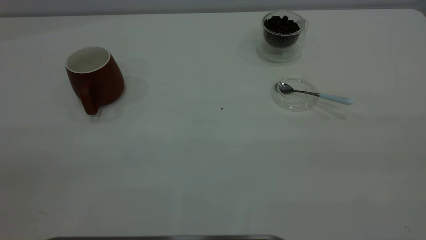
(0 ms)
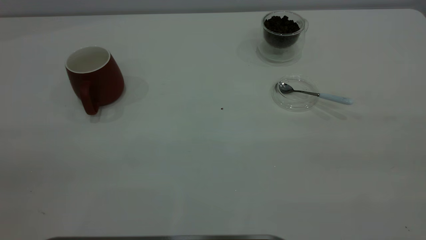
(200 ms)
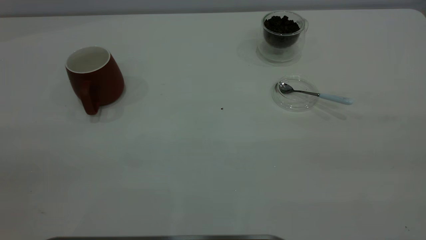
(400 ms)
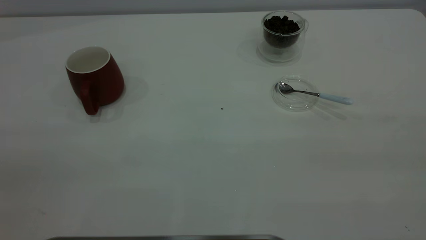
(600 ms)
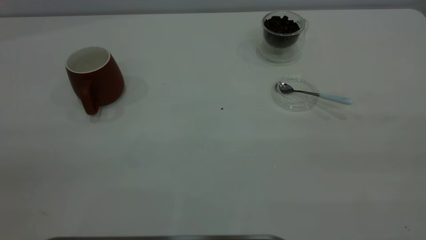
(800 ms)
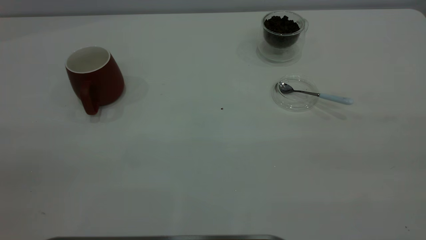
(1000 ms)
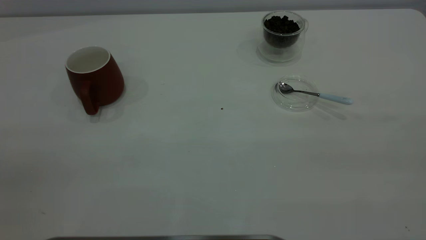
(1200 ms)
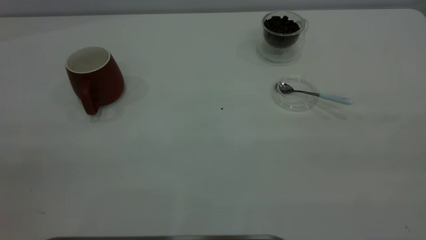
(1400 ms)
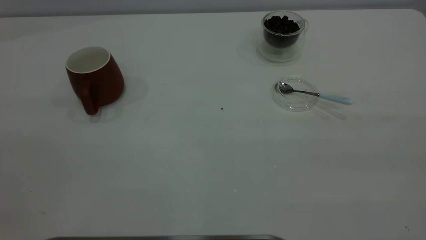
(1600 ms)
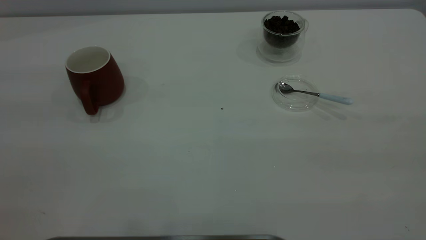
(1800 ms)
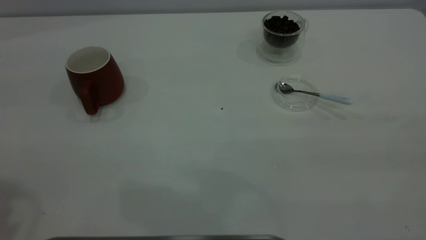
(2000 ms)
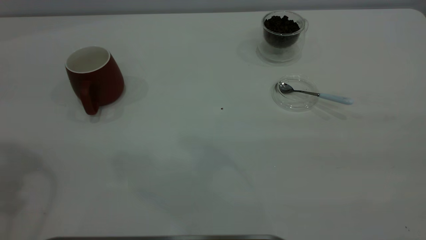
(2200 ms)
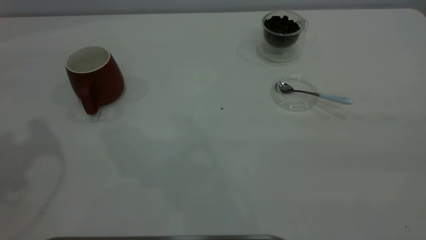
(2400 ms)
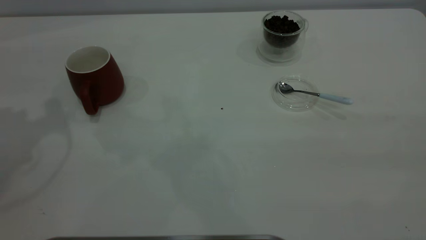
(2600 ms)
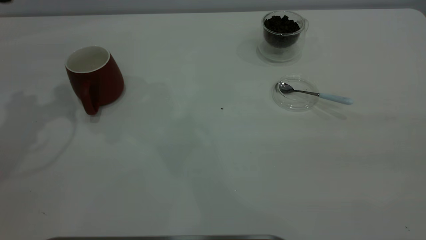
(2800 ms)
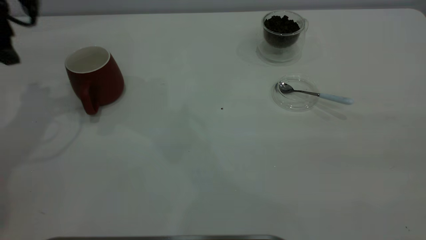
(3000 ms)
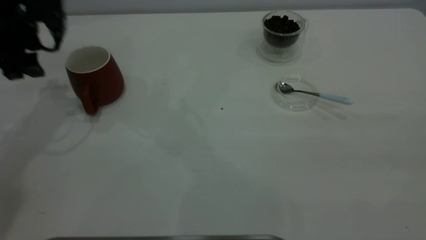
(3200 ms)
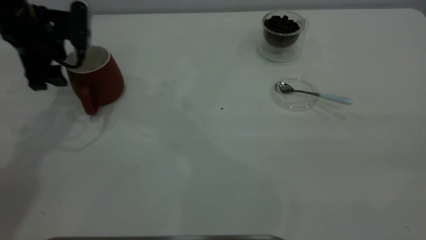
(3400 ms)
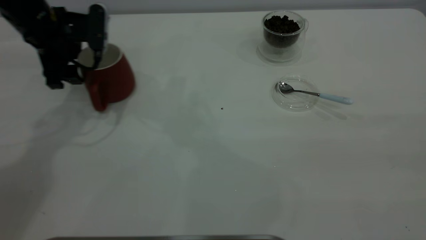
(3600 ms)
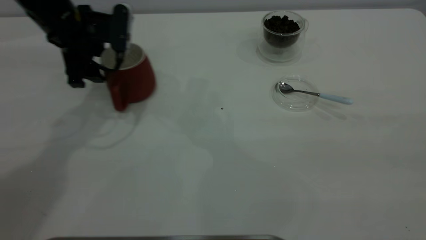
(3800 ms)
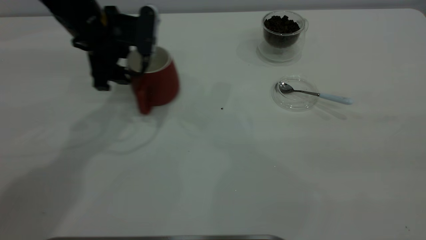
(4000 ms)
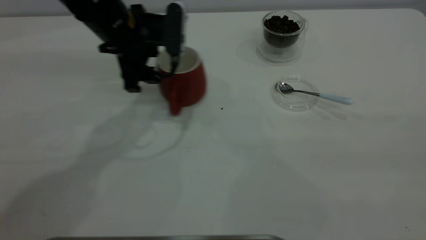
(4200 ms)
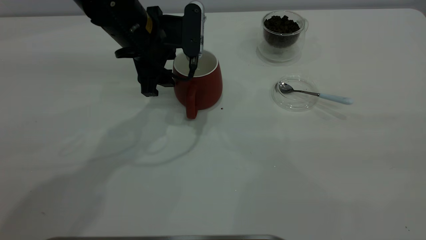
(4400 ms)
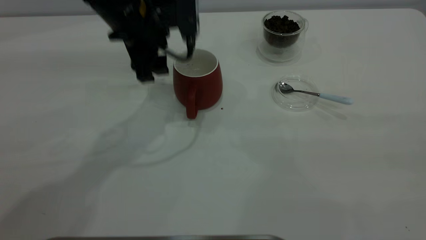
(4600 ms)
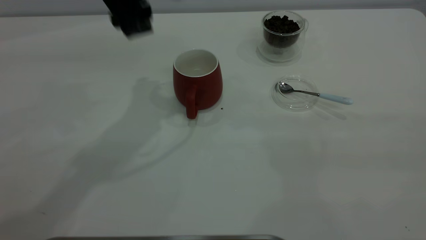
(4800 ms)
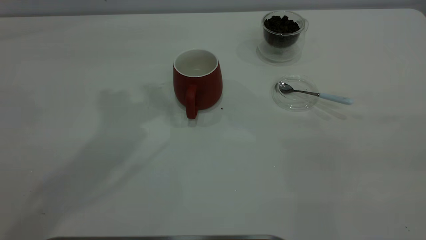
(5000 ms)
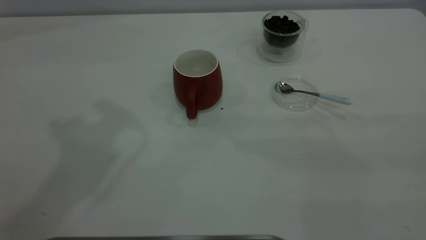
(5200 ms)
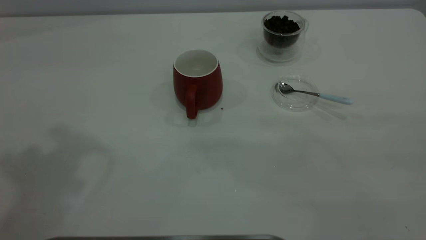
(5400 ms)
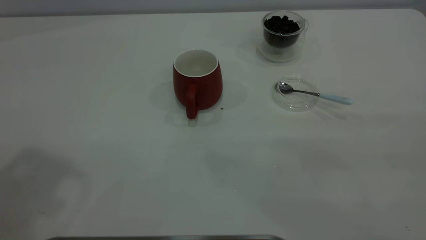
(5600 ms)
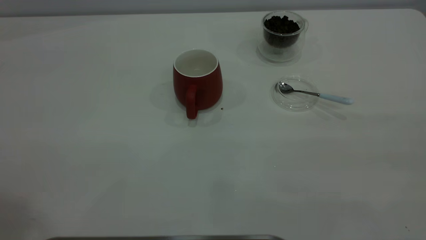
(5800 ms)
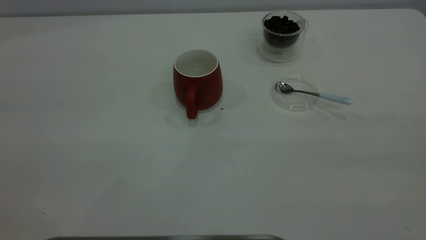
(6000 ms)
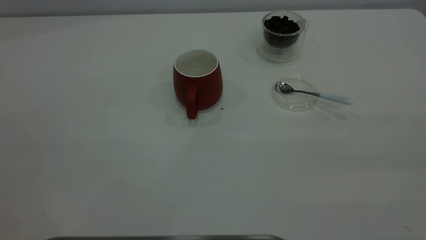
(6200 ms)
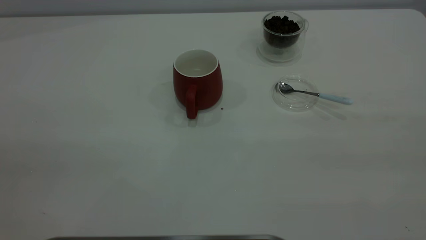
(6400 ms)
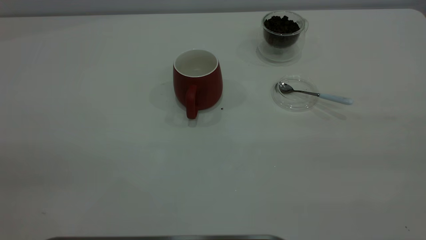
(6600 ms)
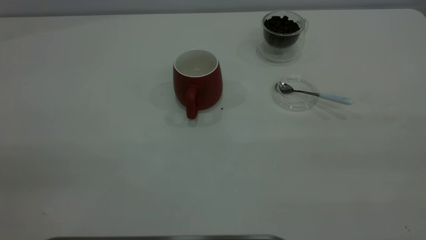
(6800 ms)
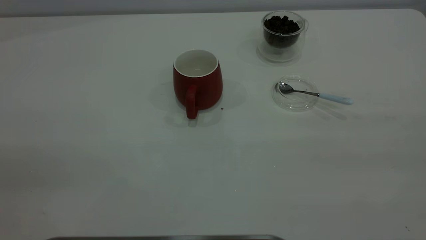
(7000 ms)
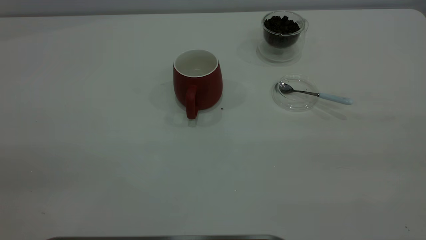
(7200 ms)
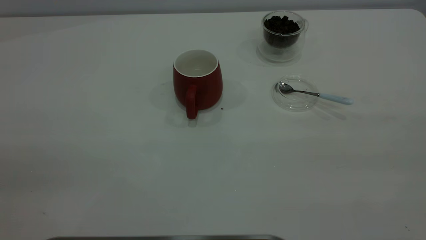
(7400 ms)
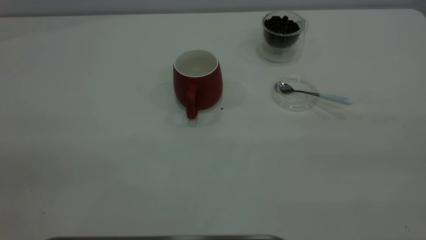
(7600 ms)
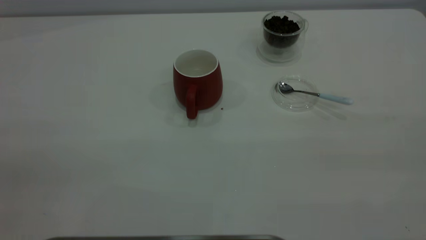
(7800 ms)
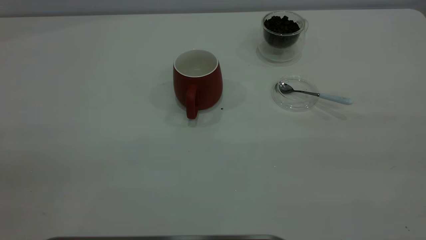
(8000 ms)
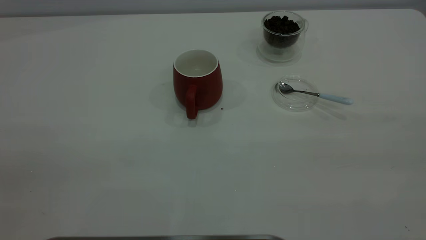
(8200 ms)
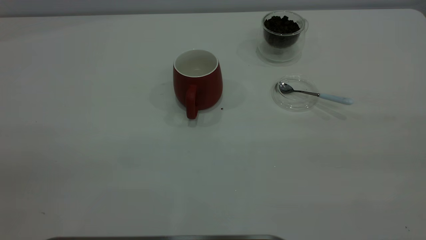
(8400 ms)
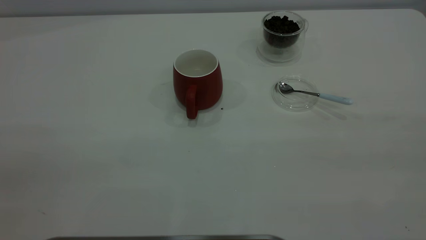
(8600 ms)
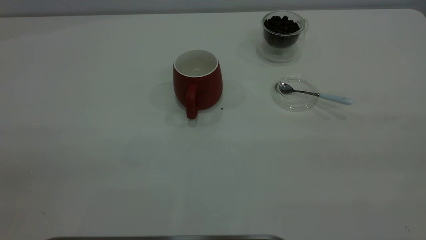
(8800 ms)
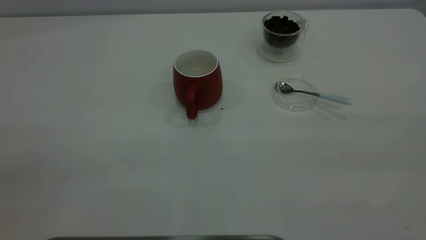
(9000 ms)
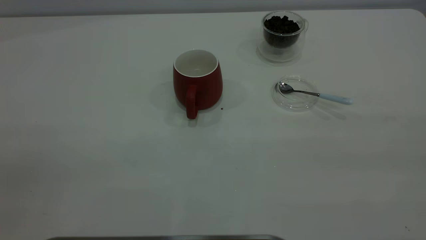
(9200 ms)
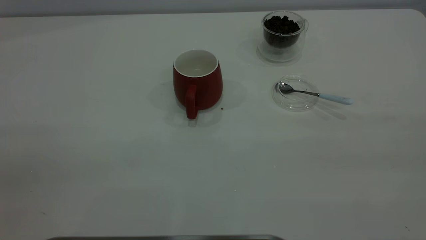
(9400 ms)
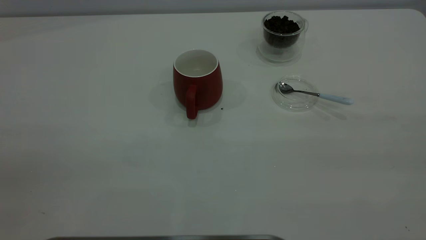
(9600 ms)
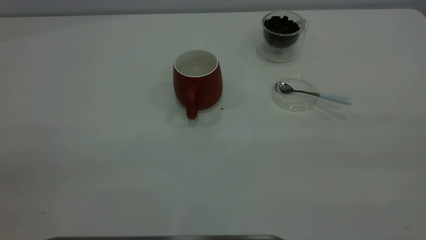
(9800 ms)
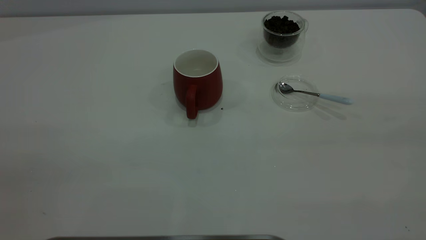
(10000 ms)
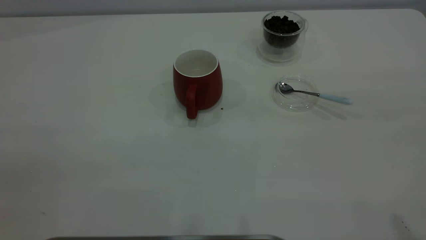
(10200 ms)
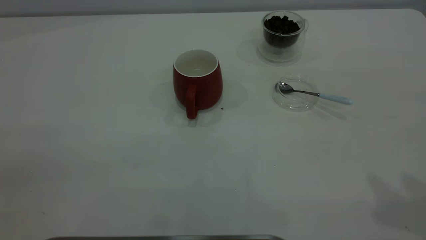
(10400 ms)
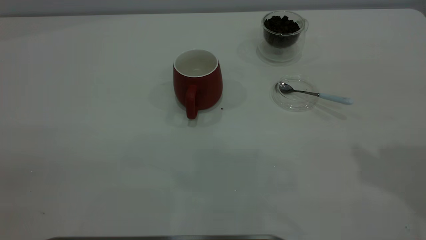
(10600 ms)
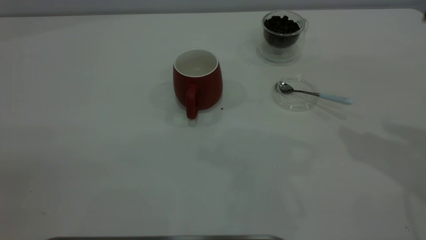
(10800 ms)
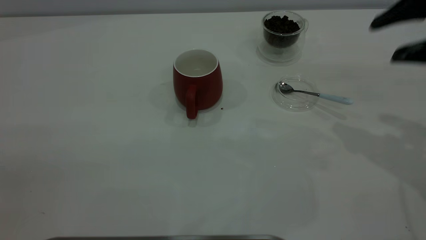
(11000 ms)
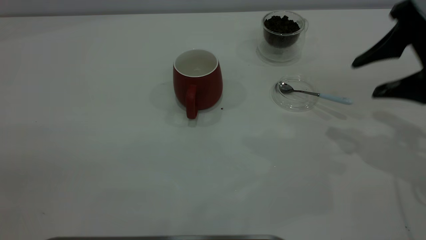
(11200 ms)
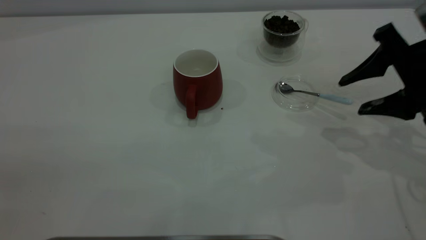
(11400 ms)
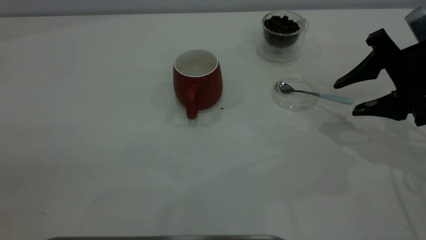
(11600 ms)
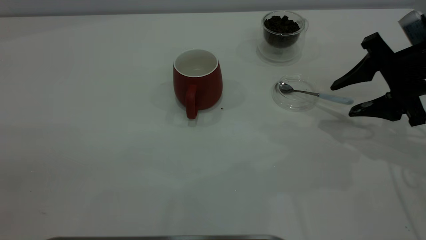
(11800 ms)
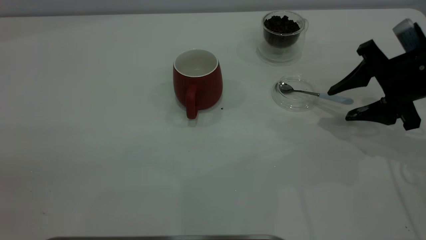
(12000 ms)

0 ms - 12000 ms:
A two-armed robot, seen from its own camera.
Task of the whole recording: the left gripper place the red cup in the center of the table, the right gripper take the blue spoon from the cup lid and scoop out the coffee beans from the coffee cup and put them into the red cup, the right gripper put the spoon back into the cup lid.
Step, 0 ms - 4600 ms: Move the cup to the center of view.
1600 ms - 3000 ms: The left gripper is displaced forward and downward by roughly 40 cm.
3000 ms - 4400 ms: The left gripper moves to the right, some 20 cm.
4400 ms - 6000 ms: The left gripper moves upward, backward and to the left, roughly 50 cm.
10400 ms - 12000 ms: The right gripper moves downward and forward, roughly 30 cm.

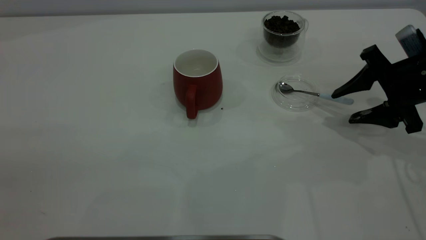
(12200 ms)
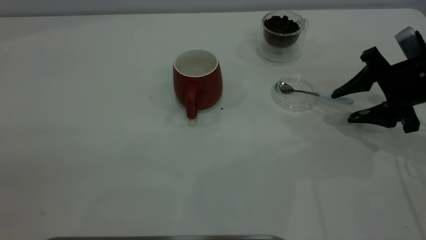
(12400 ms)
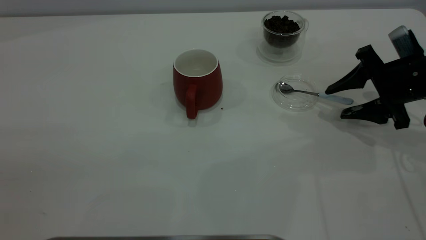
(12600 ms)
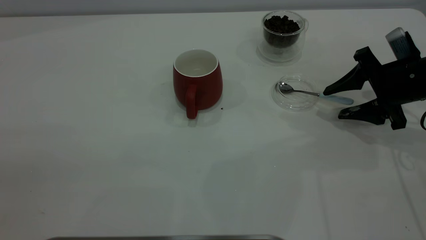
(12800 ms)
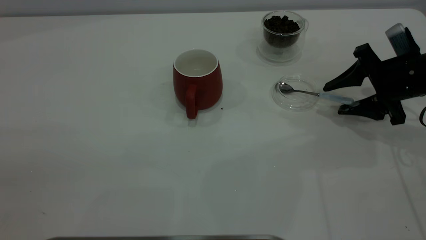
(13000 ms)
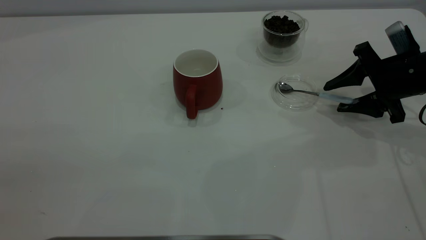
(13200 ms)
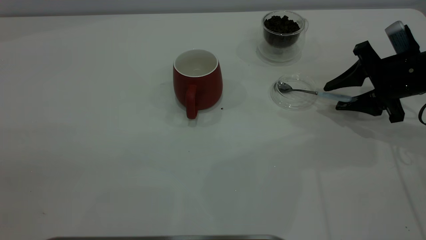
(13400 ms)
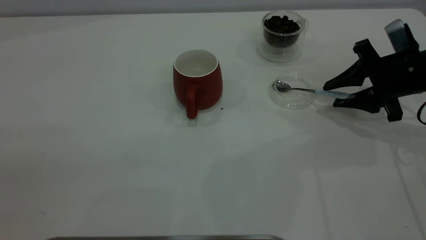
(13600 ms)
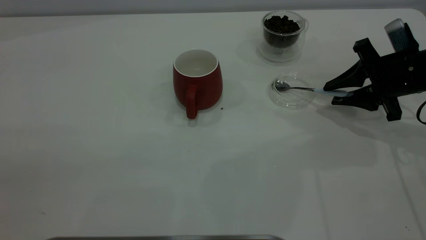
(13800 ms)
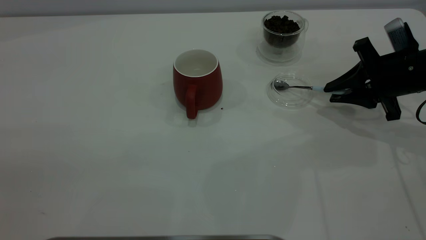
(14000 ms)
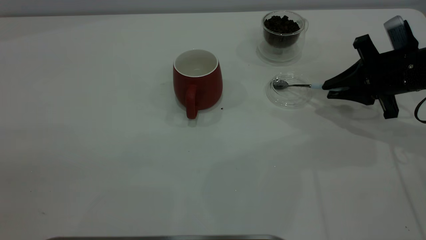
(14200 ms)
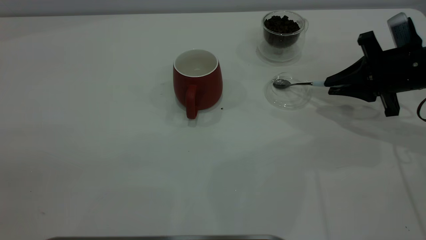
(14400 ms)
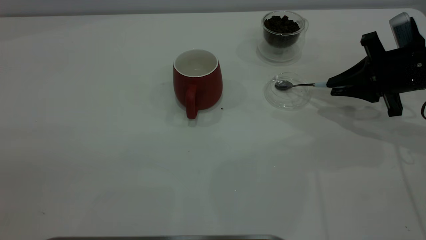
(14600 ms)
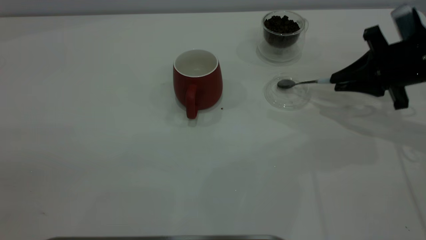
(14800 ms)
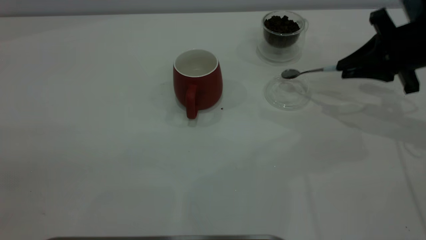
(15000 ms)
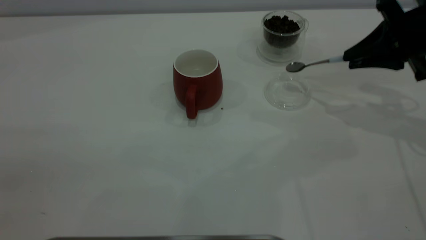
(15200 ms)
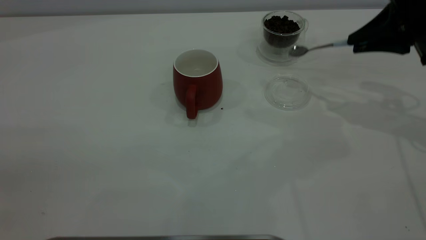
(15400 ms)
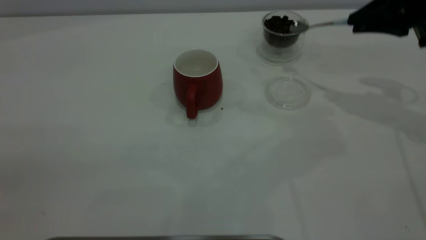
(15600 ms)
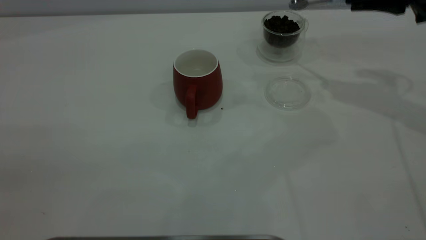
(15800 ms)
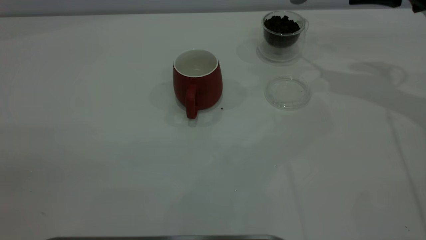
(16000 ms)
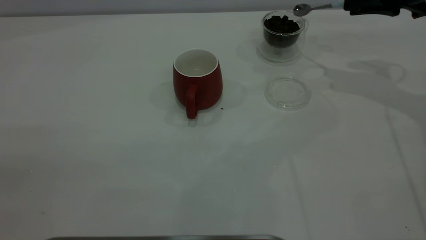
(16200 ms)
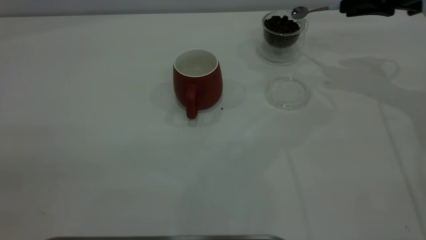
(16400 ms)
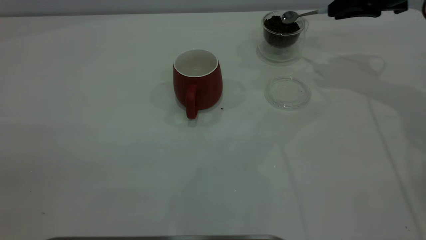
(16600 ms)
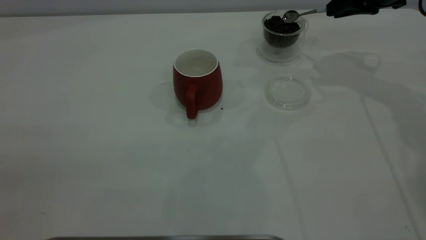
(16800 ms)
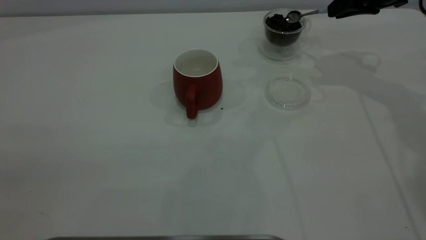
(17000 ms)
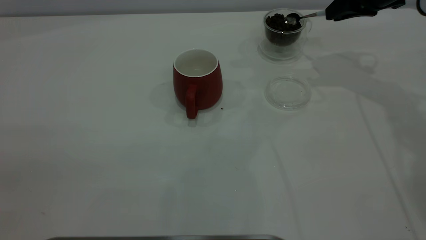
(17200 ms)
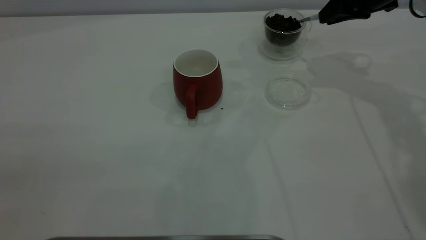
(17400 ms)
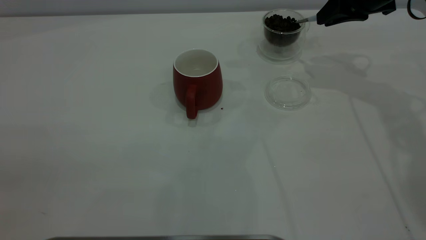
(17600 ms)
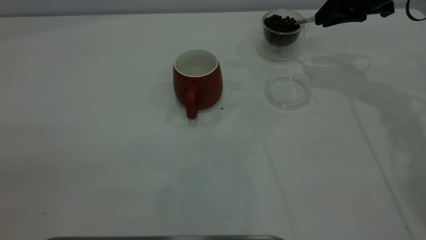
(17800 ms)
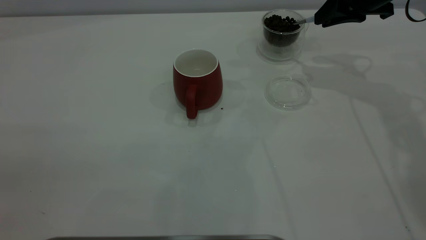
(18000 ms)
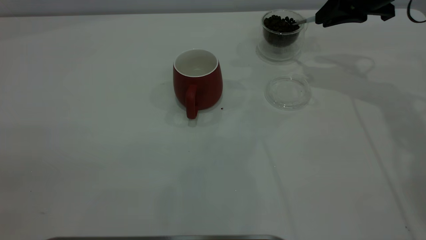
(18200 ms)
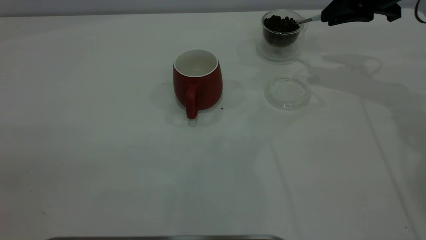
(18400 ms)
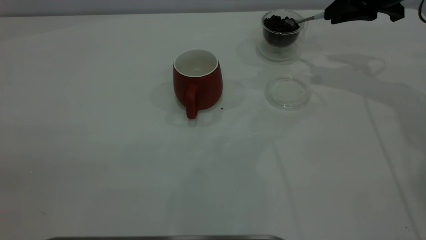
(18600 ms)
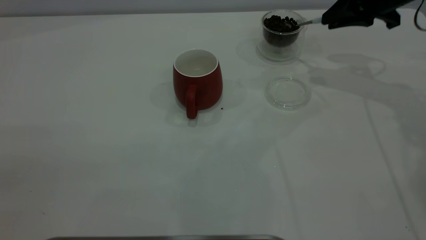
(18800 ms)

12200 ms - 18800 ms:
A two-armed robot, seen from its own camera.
Task of the whole recording: the left gripper place the red cup in the center of the table, the right gripper take the blue spoon from the cup lid and scoop out the coffee beans from the coffee cup and put them into the red cup, the right gripper put the spoon back into the cup lid.
Step, 12200 ms - 14800 ms: Pick up the spoon.
12200 ms - 13800 ms: The right gripper closes up.
13800 ms - 15400 ms: The right gripper travels upward by some 10 cm, and closes up.
15400 ms - 17200 ms: The right gripper moves forward, roughly 10 cm.
